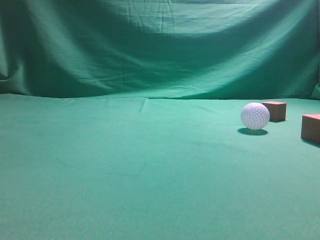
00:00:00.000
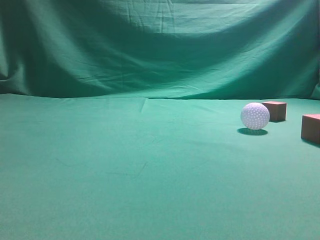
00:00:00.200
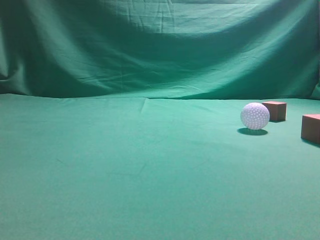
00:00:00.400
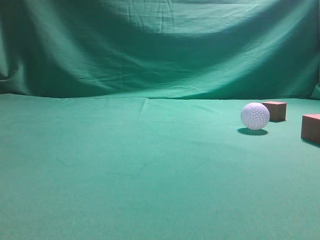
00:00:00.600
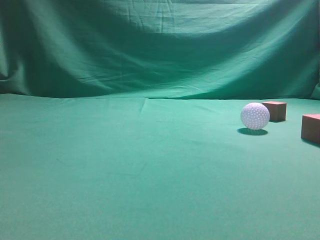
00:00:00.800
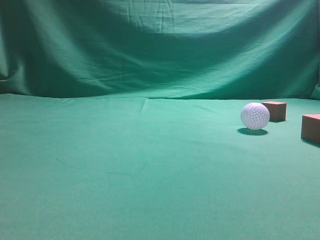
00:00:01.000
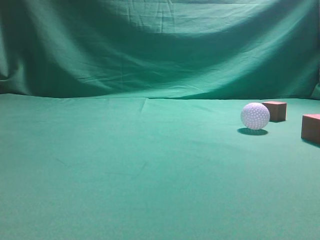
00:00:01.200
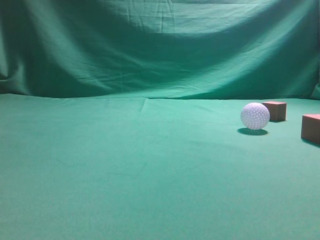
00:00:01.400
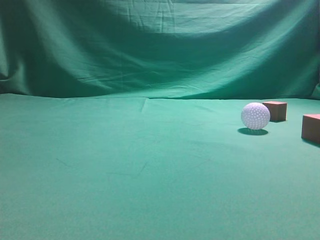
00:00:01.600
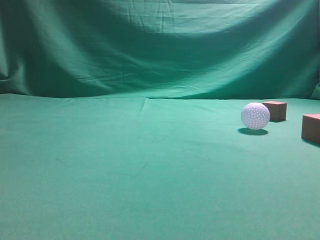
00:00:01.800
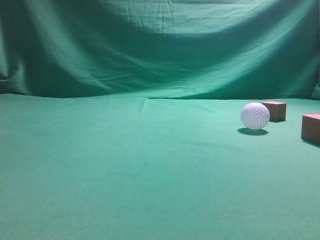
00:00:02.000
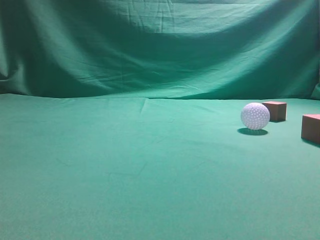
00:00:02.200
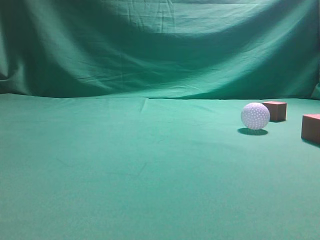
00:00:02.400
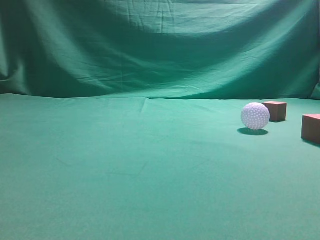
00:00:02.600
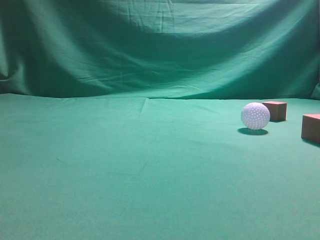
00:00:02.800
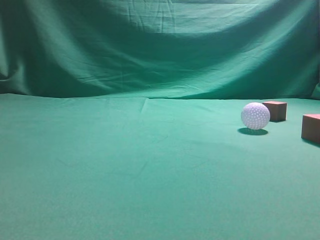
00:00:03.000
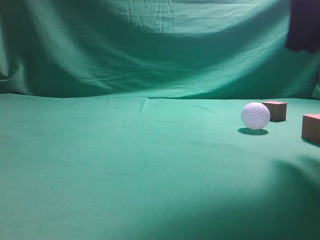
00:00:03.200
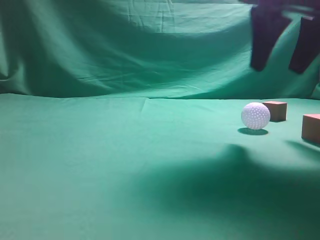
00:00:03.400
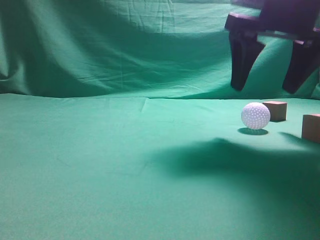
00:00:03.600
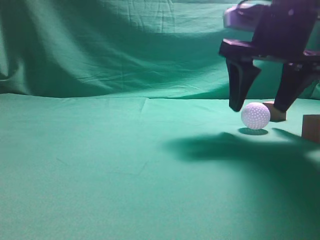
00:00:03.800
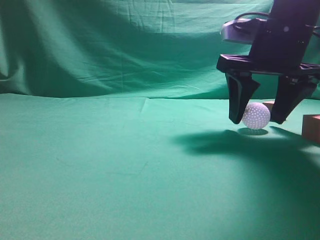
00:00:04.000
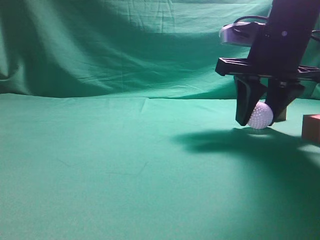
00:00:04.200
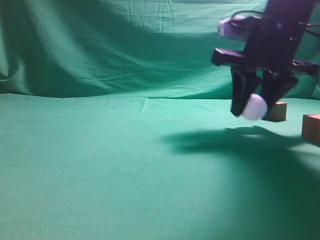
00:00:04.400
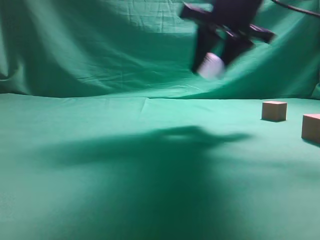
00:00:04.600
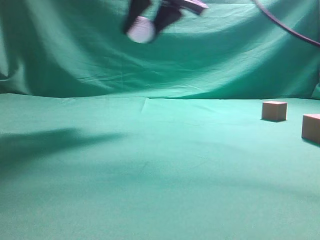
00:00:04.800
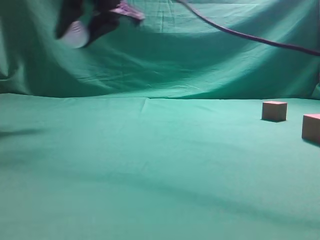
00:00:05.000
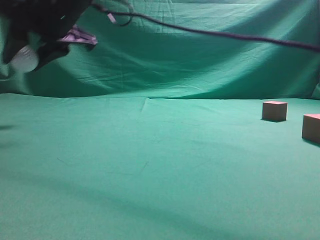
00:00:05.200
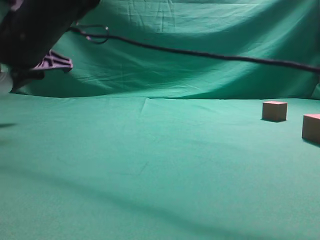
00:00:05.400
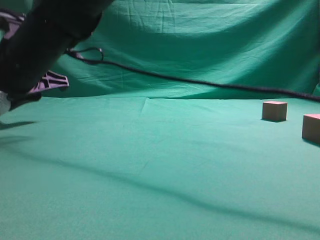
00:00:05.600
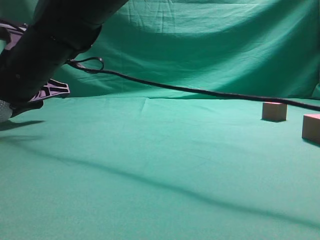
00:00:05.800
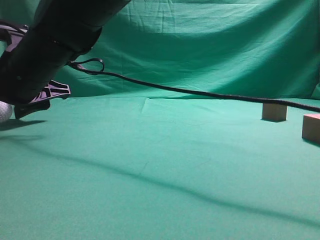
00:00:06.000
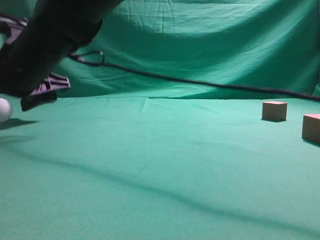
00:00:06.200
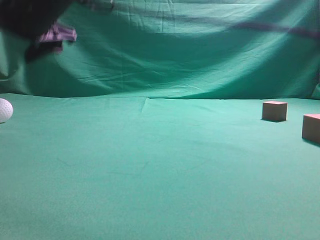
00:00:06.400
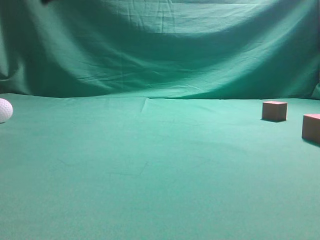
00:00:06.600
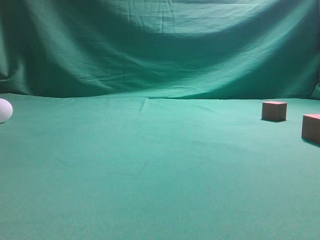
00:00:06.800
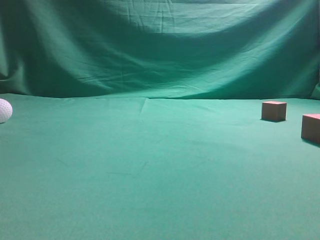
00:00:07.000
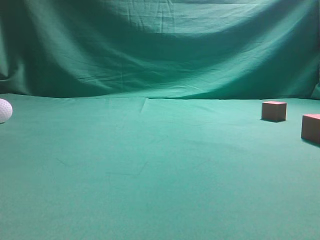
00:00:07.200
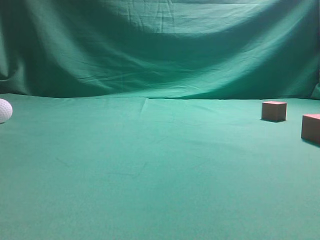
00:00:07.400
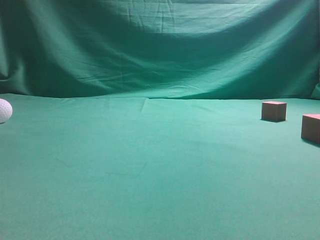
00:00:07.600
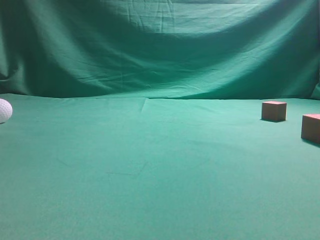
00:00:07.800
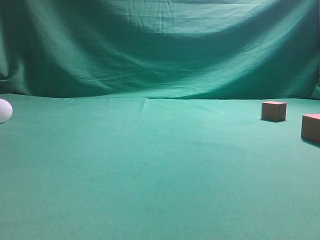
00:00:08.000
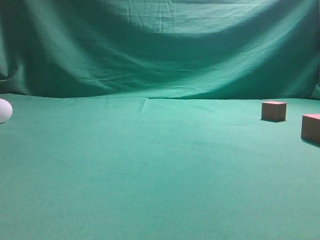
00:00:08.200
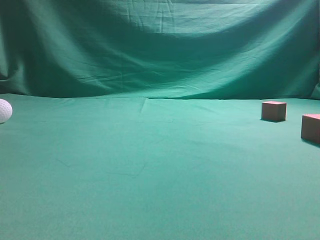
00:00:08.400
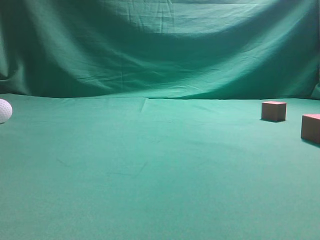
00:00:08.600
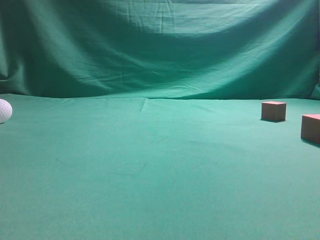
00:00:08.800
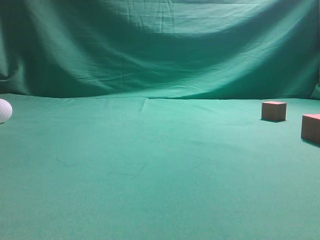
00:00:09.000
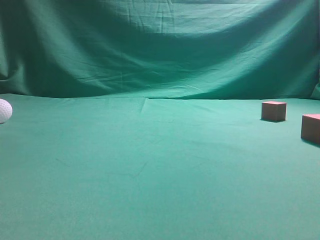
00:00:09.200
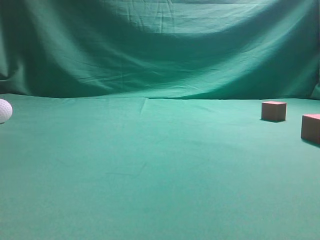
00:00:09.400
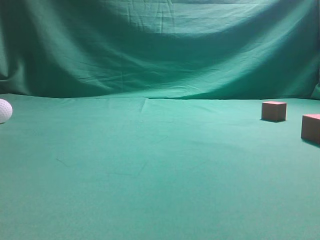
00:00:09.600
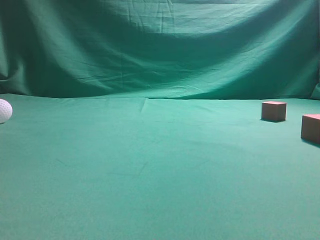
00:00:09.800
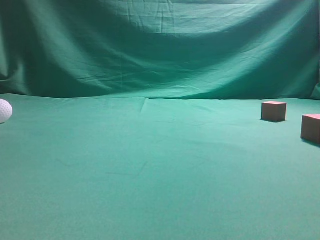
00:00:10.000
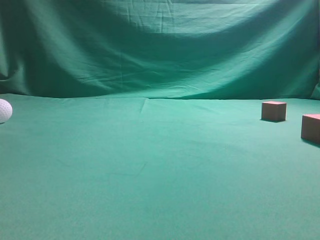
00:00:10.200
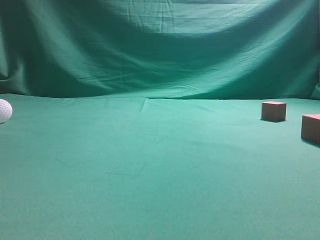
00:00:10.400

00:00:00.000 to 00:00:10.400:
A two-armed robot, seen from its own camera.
Step, 00:00:00.000 to 00:00:04.400: Grasp the spherical object on the right side.
00:00:03.000 to 00:00:04.400: The right gripper heads forward, downward and to the left, covering some 15 cm, and opens its fingers.
00:00:04.400 to 00:00:06.000: The right gripper goes some 35 cm to the left.
00:00:06.000 to 00:00:07.400: The right gripper shifts some 40 cm upward and to the right, and closes up.
